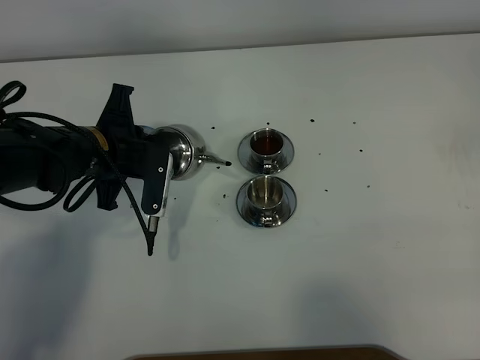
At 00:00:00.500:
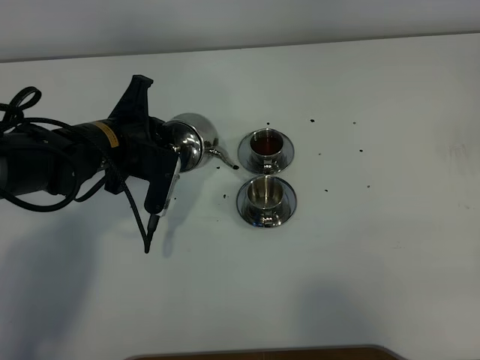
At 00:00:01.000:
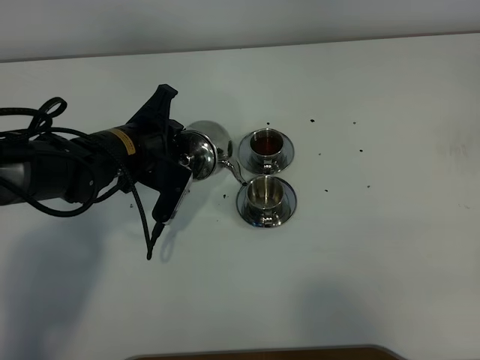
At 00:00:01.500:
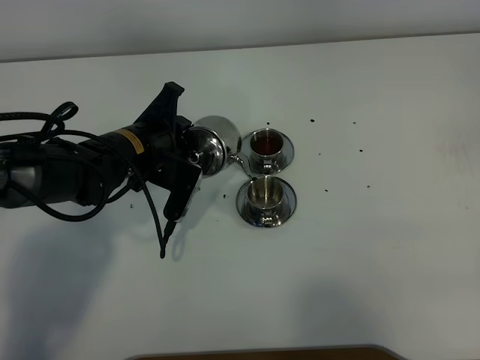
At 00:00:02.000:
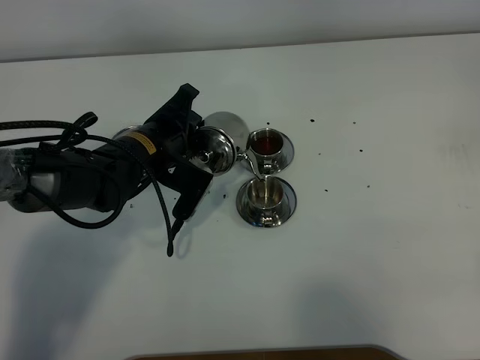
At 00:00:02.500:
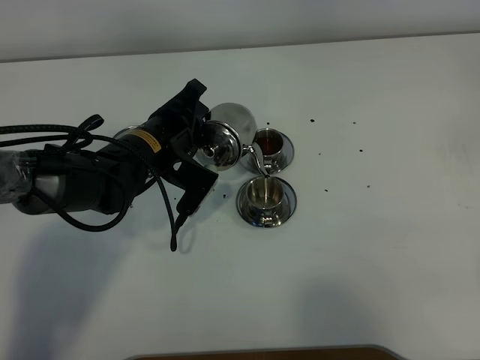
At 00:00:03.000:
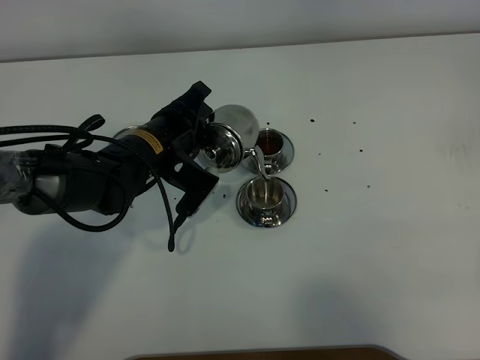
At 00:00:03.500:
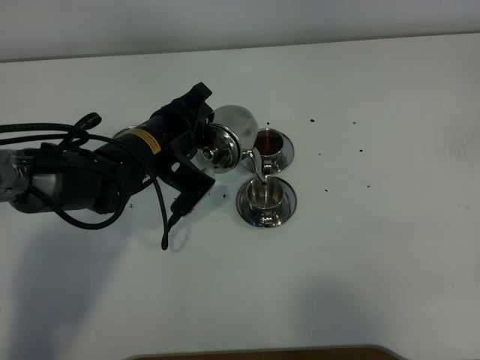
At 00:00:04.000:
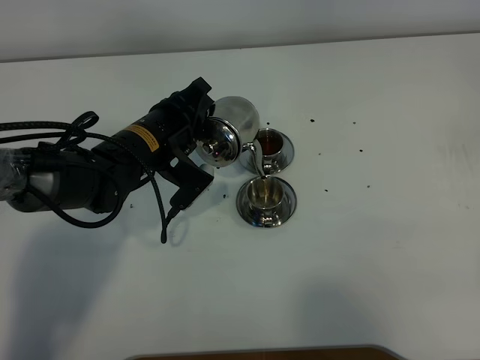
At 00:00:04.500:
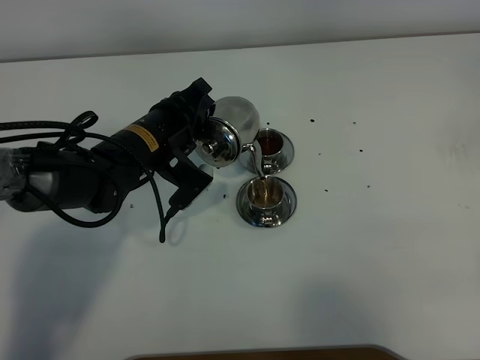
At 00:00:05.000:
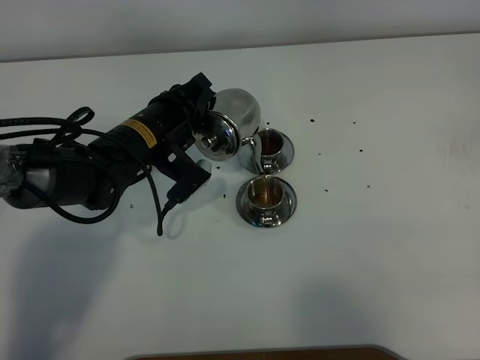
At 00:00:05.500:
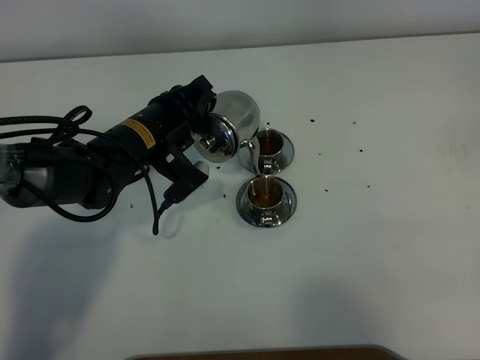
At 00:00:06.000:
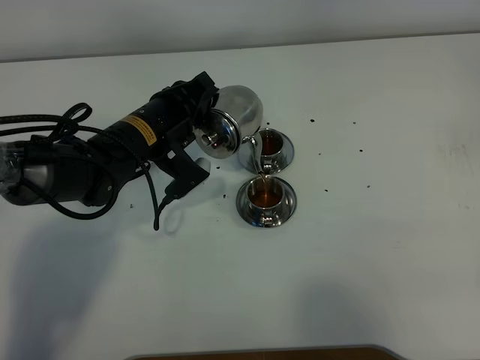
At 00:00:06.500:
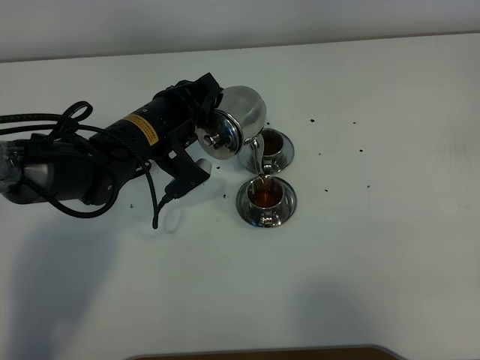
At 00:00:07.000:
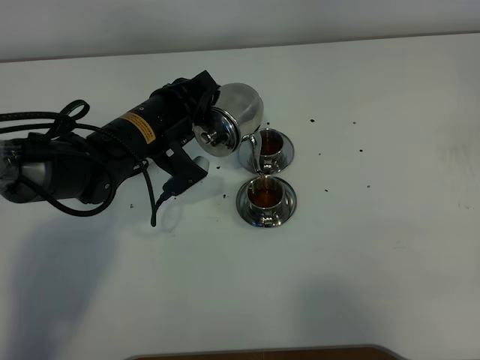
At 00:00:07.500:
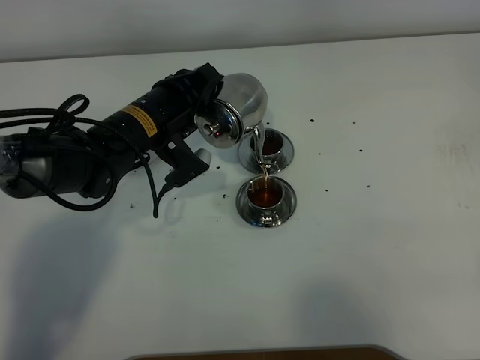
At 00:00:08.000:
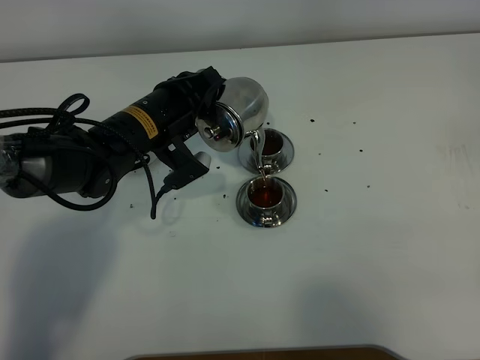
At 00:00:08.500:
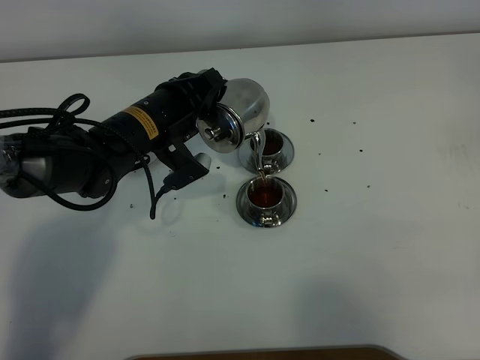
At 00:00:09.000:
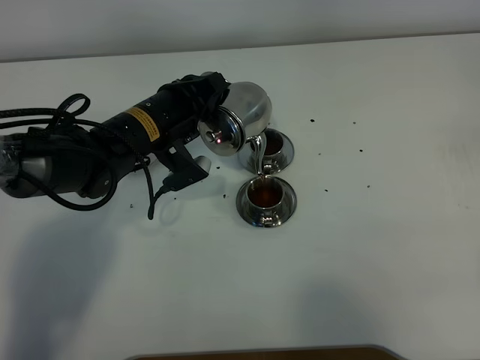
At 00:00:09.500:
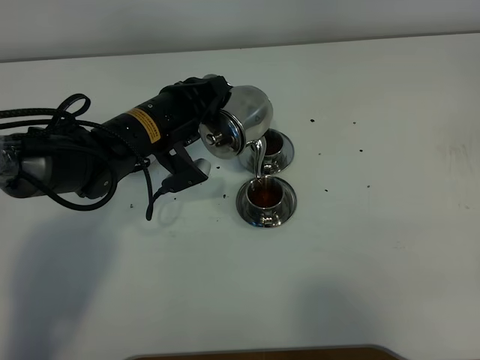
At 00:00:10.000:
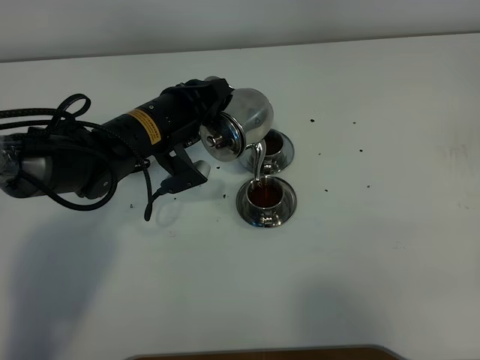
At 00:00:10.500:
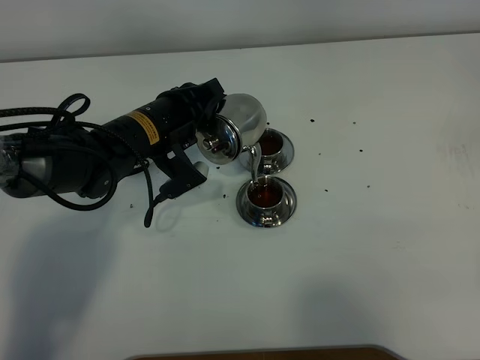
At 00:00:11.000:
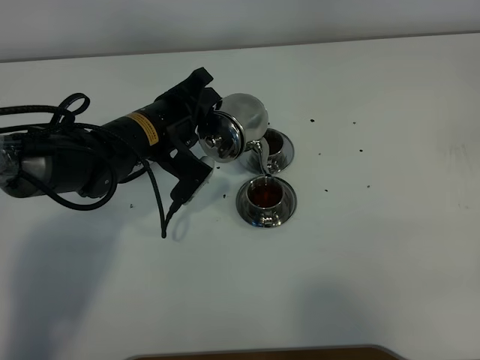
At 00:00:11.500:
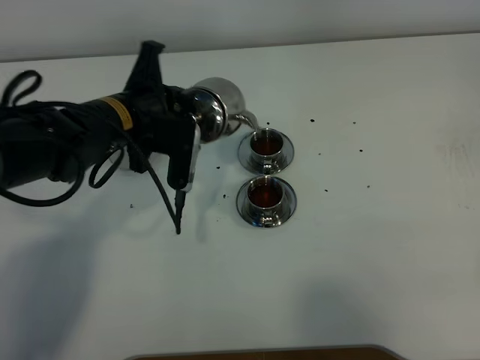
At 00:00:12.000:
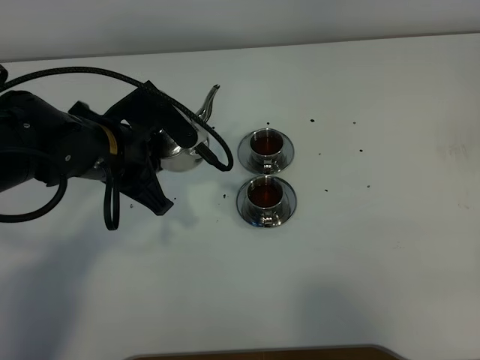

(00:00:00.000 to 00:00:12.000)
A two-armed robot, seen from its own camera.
Task of the whole recording: grasp the stainless steel teapot and pour the tea into the two stainless steel teacups one by one, put the stainless steel teapot back in its original place.
Step, 00:00:00.000 - 00:00:11.000: Pour tea into the teacup with the left gripper.
00:00:00.000 - 00:00:02.000: The left gripper moves roughly 5 cm.
00:00:02.000 - 00:00:04.000: The grippers make only small movements.
00:00:04.000 - 00:00:10.000: The grippers move only a little.
00:00:10.000 - 00:00:12.000: The left gripper shifts some 5 cm backward.

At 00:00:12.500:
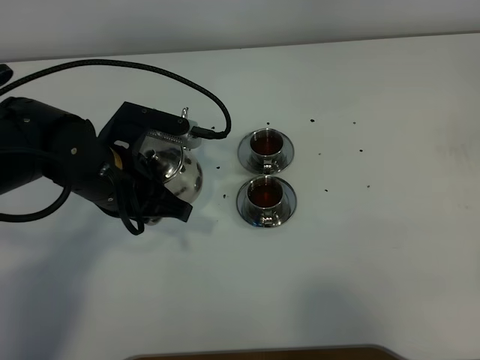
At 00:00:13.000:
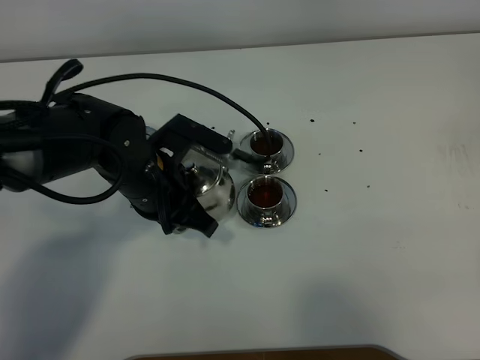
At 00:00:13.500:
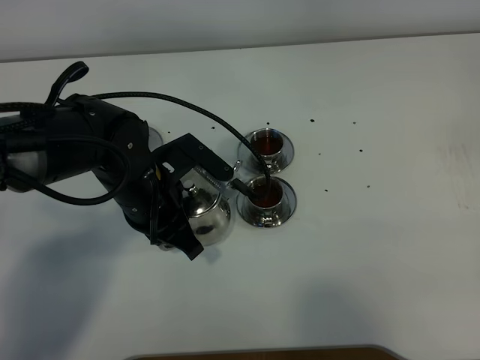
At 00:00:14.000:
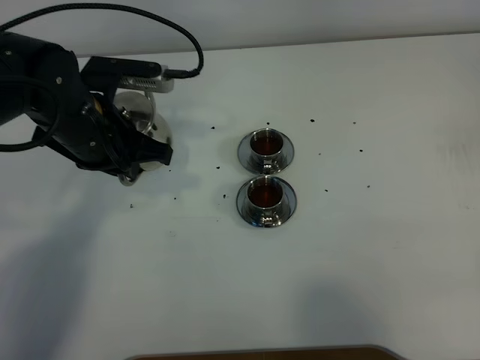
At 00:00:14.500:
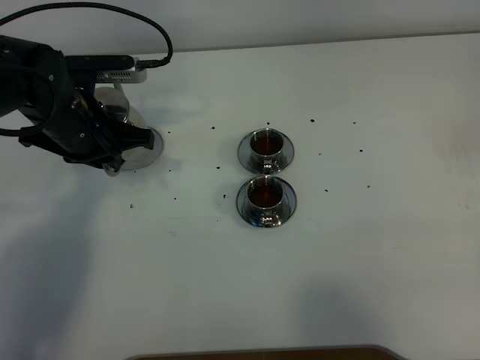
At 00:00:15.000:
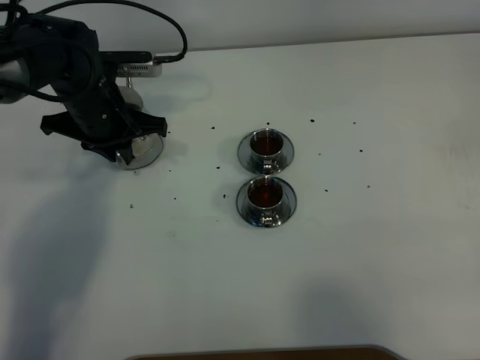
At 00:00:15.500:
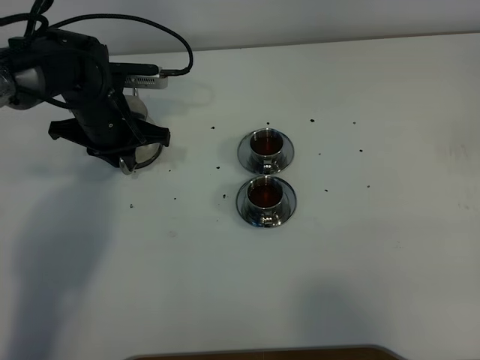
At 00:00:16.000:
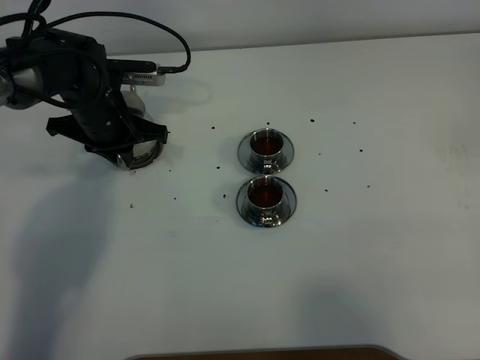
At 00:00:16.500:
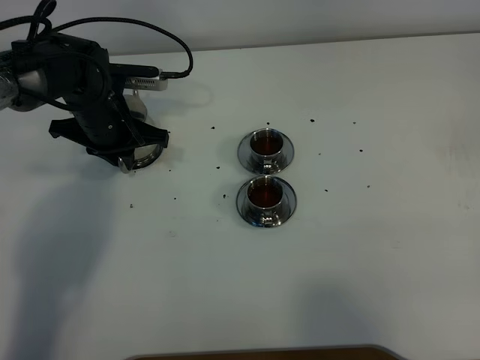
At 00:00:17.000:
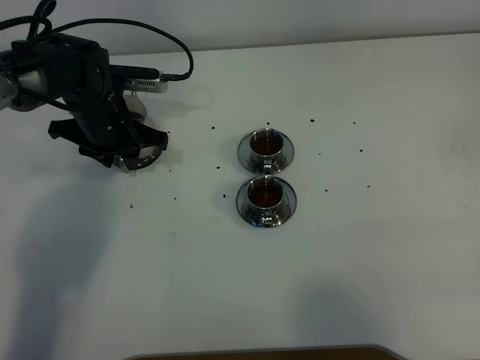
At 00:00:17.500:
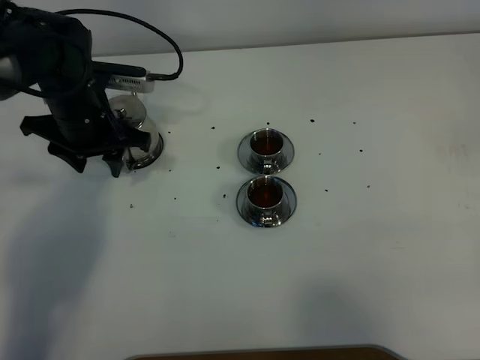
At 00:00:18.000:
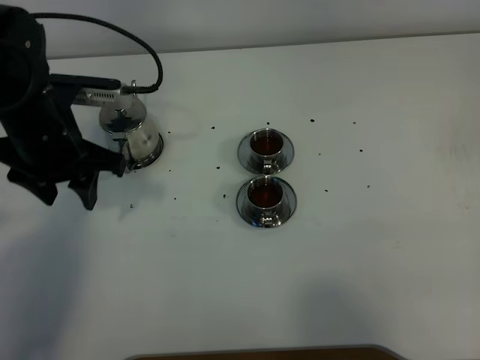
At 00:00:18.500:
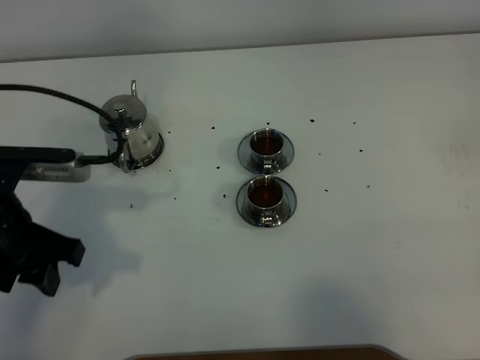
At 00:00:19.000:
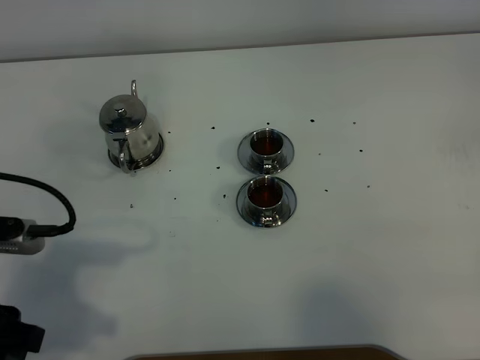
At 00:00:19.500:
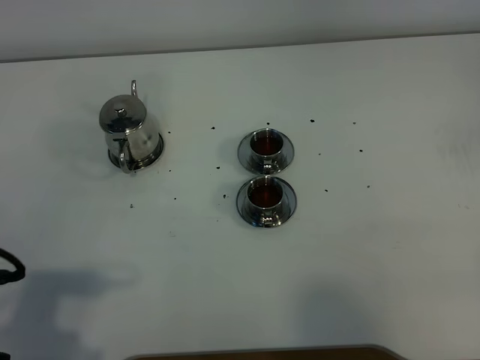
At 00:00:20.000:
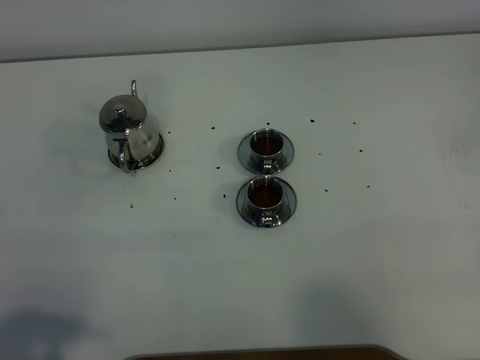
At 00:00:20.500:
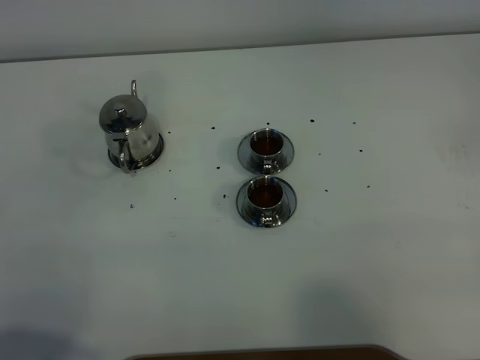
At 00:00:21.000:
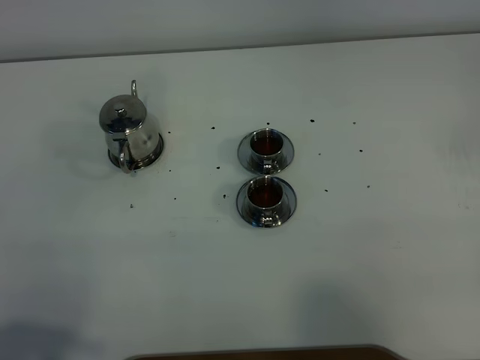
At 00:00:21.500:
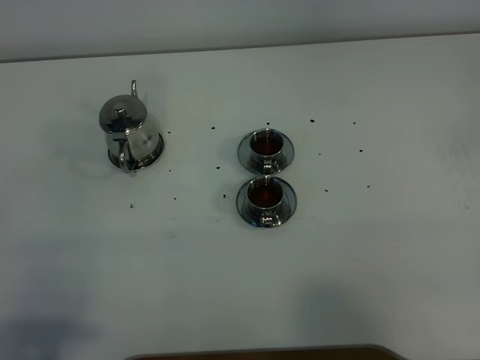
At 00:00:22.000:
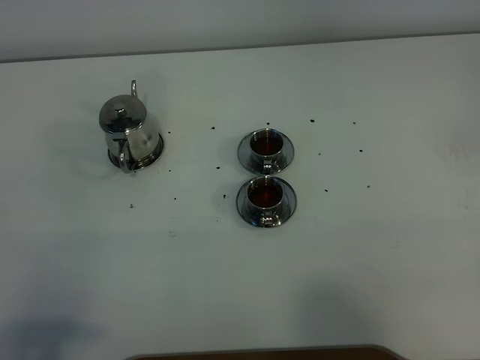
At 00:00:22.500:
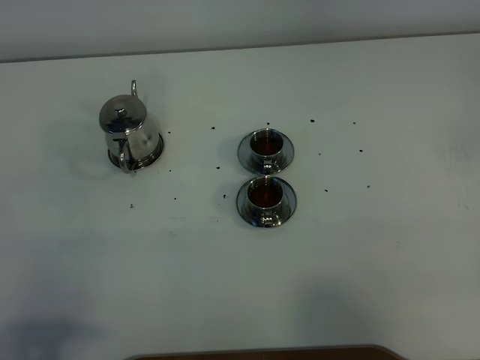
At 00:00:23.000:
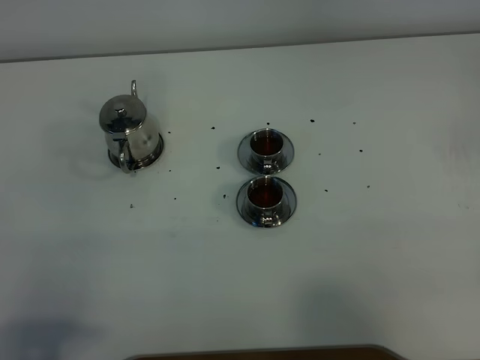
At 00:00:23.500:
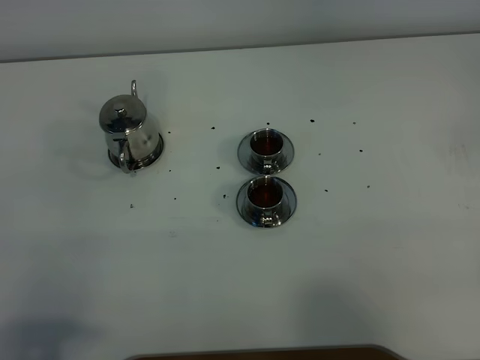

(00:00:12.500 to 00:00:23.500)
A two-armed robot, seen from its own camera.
Task of the whole recording: grasp the stainless steel teapot and pour the tea into the two stainless steel teacups one by one, put the stainless steel teapot back in its original place.
00:00:12.500 - 00:00:14.500: The left gripper heads forward and to the left, covering roughly 10 cm.
00:00:14.500 - 00:00:16.000: The left gripper heads forward, covering approximately 5 cm.
00:00:16.000 - 00:00:18.000: The left gripper goes some 15 cm backward and upward, and opens.
00:00:18.000 - 00:00:20.000: The left gripper shifts some 30 cm backward.
00:00:21.500 - 00:00:23.500: Both grippers stay about where they are.
